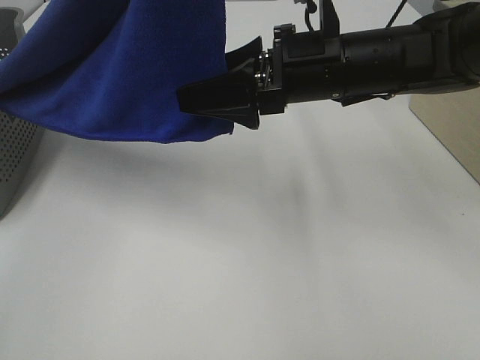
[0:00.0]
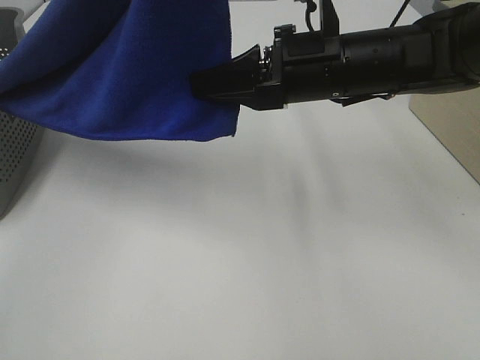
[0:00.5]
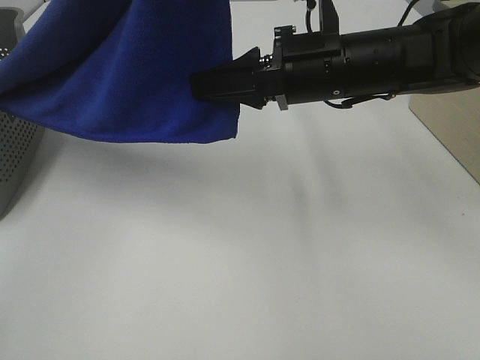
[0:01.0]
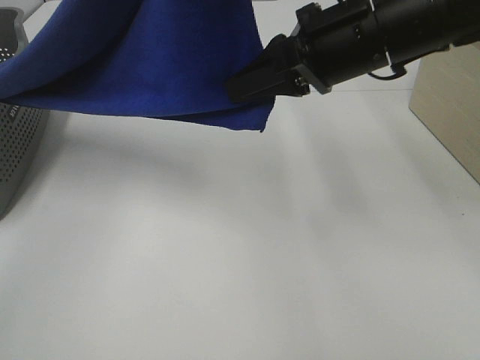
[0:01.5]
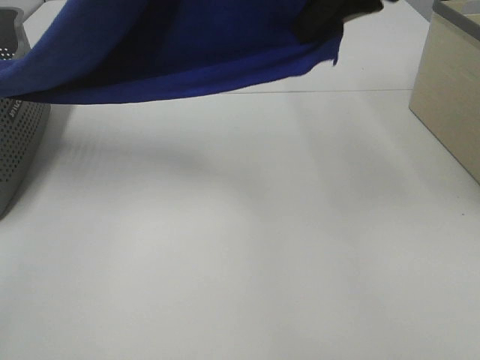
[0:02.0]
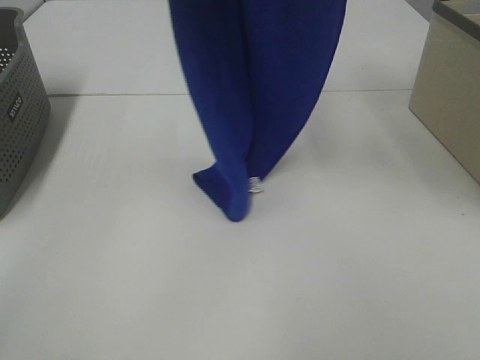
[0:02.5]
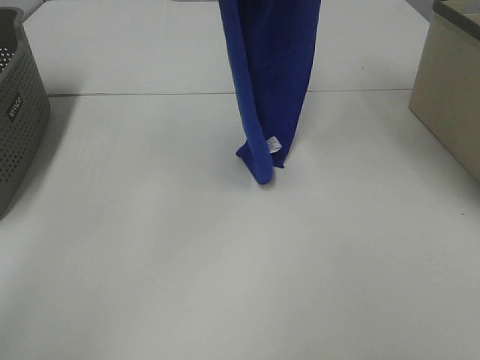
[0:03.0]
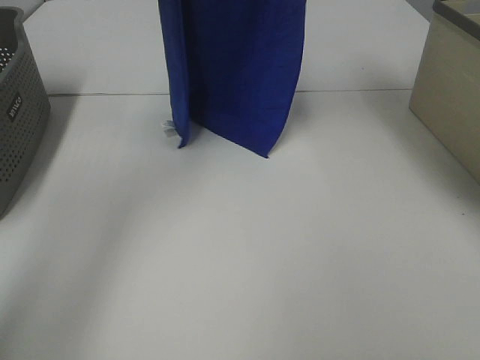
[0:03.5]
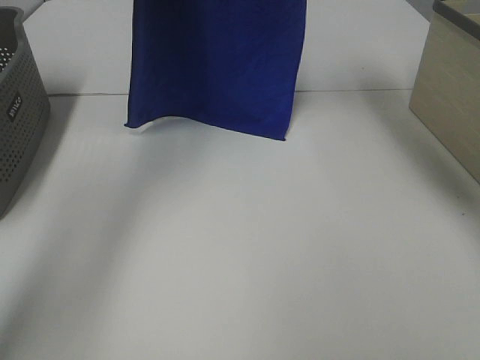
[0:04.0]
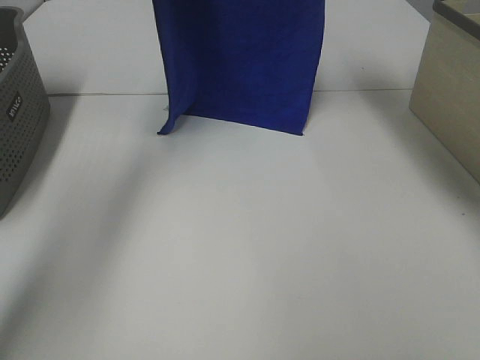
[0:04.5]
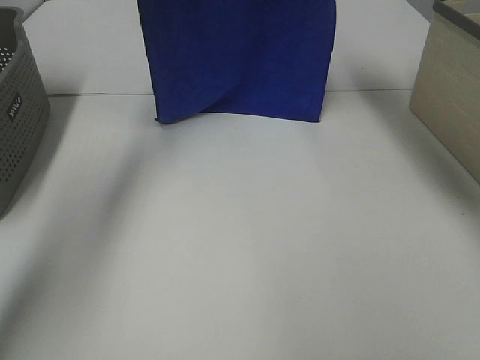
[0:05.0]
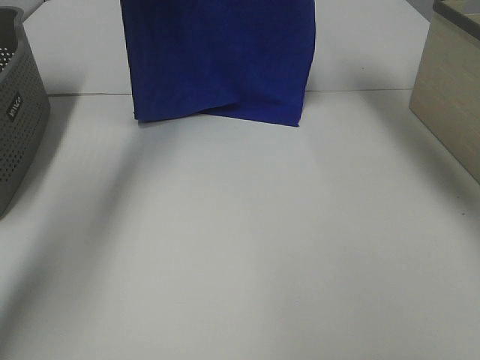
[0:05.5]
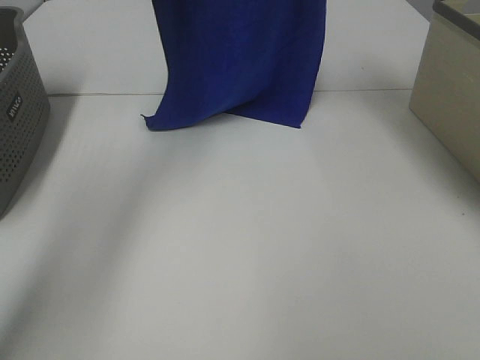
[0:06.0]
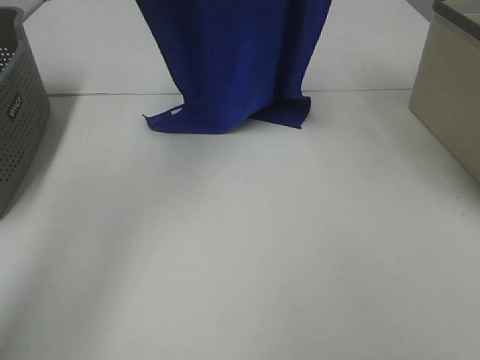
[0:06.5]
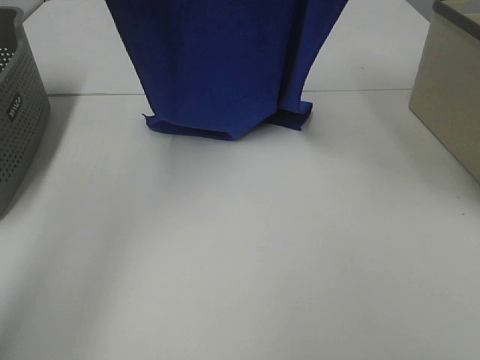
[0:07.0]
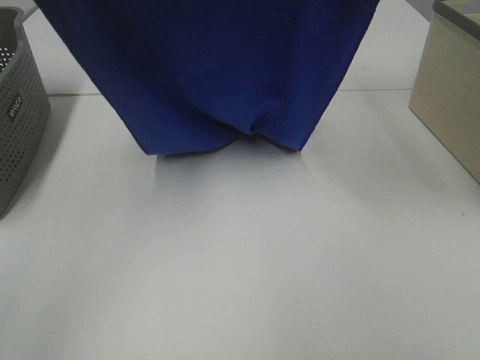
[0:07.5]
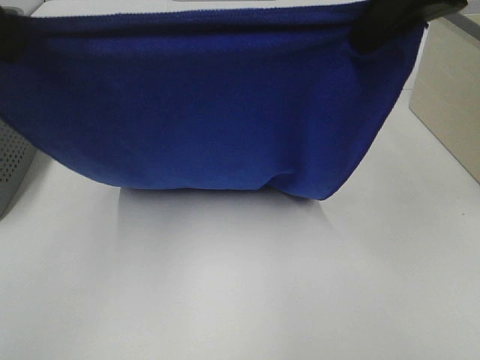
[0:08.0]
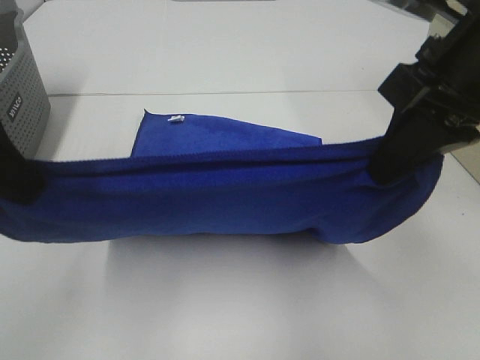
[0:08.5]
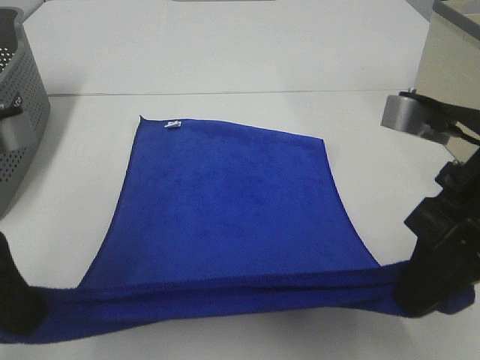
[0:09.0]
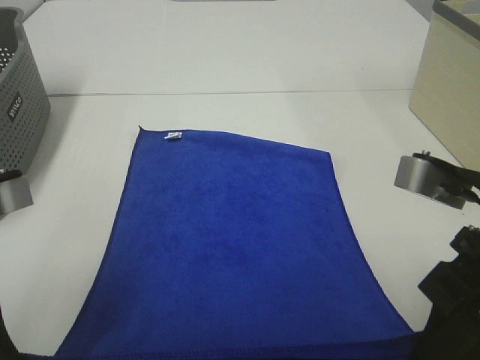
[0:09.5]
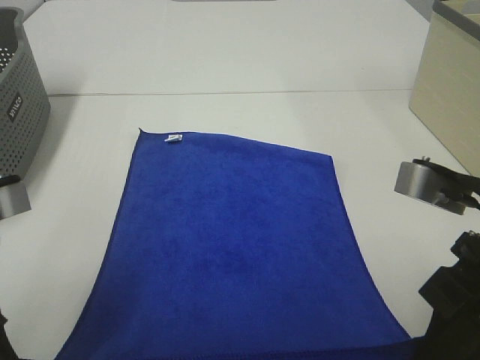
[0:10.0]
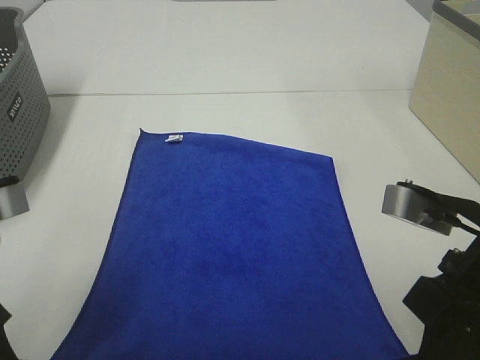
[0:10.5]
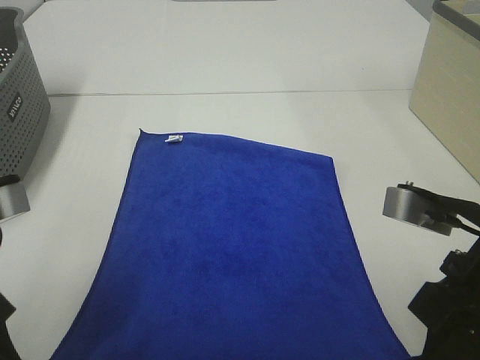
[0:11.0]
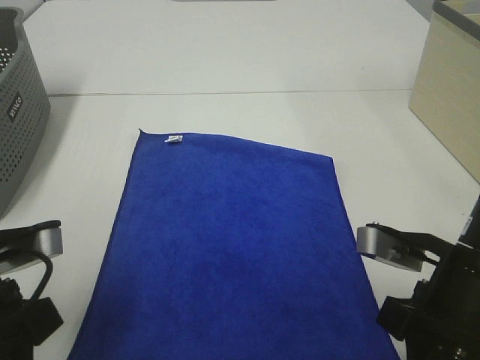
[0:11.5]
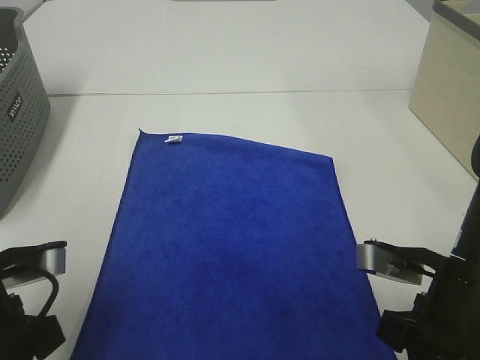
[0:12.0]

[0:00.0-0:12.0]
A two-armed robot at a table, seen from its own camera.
Task of the whole recording: Remove the towel and place it.
Step, 0:01.5 to 0:08.0: Left hand: spread the blue towel flat on the table.
Step, 0:01.5 to 0:08.0: Right hand: spread the blue towel flat on the table.
0:00.0 to 0:02.0: The right gripper moves upward, roughly 15 cm, and closes.
0:02.0 to 0:04.0: The right gripper heads forward and upward, covering about 20 cm; the left gripper moves forward, some 20 cm.
0:06.0 to 0:08.0: Both grippers move backward, approximately 25 cm.
0:08.0 to 0:10.0: Both grippers move downward and backward, some 20 cm.
0:10.0 to 0:12.0: The grippers both shift downward by some 10 cm.

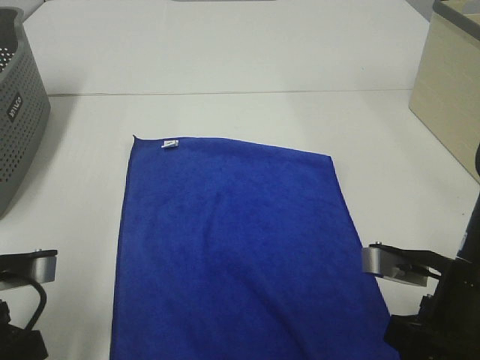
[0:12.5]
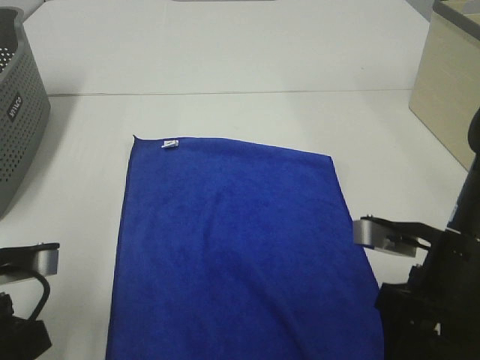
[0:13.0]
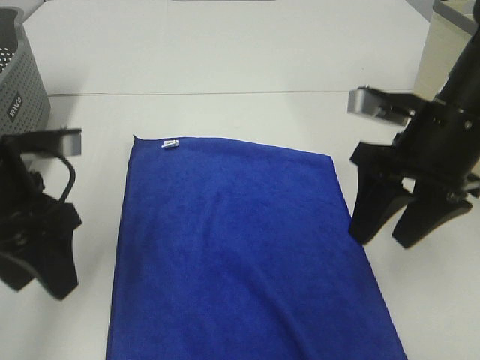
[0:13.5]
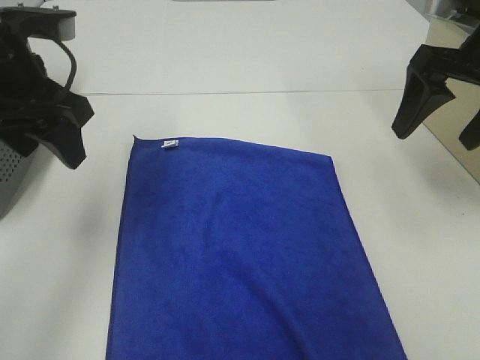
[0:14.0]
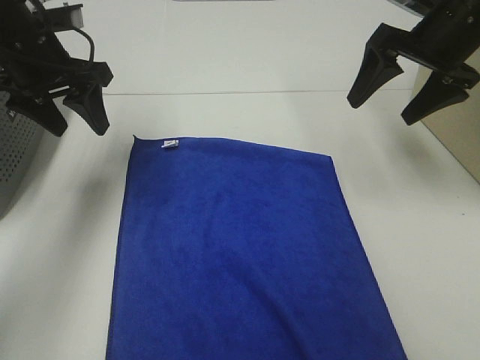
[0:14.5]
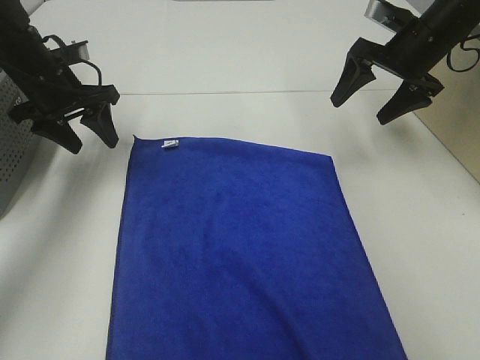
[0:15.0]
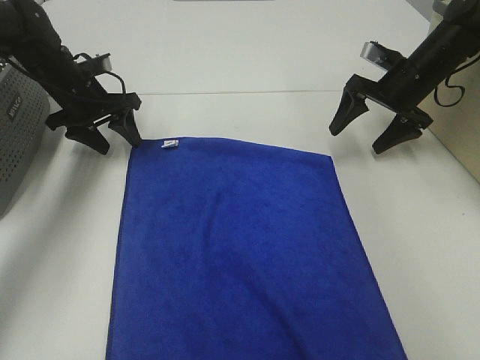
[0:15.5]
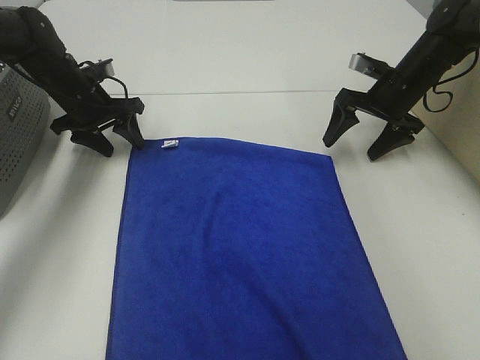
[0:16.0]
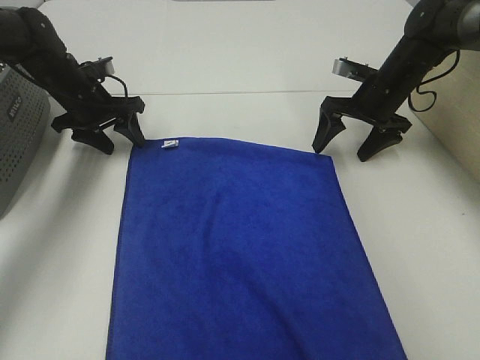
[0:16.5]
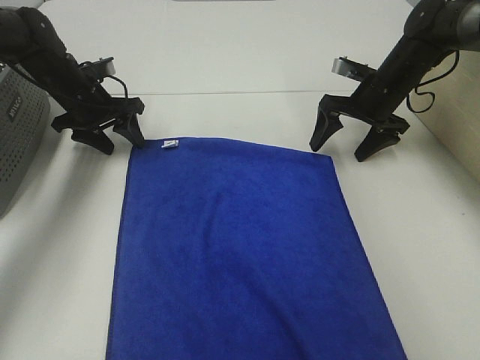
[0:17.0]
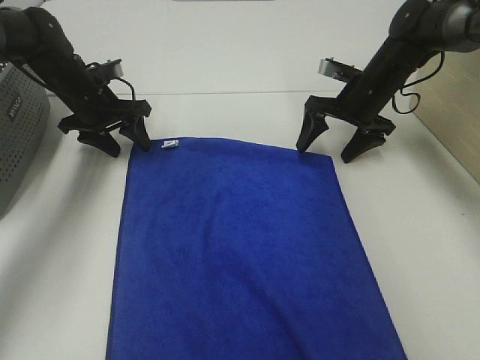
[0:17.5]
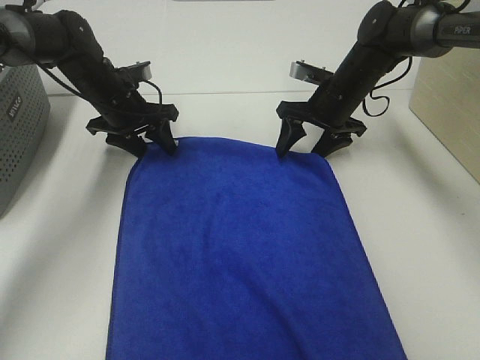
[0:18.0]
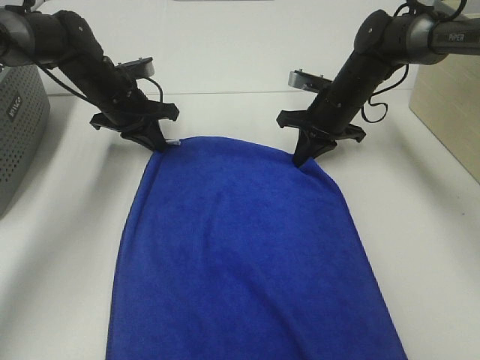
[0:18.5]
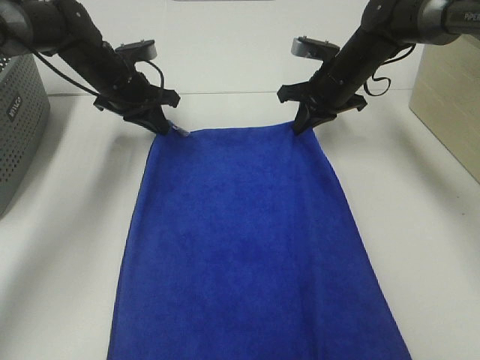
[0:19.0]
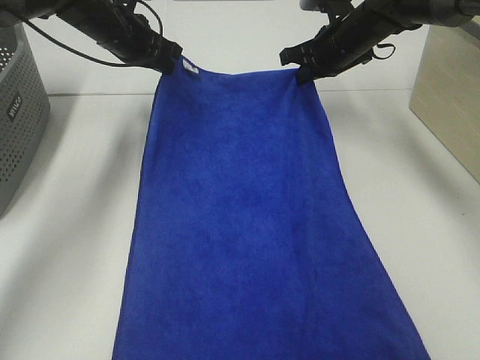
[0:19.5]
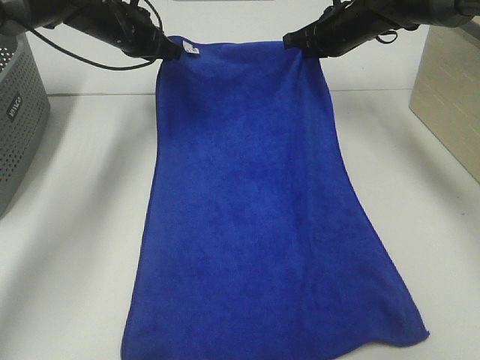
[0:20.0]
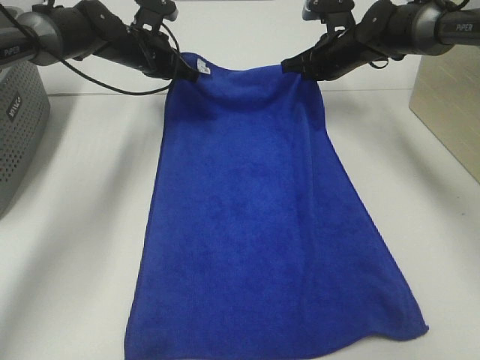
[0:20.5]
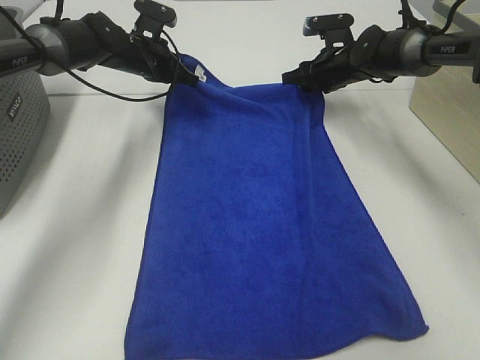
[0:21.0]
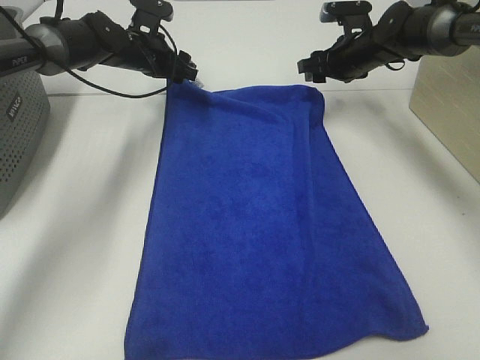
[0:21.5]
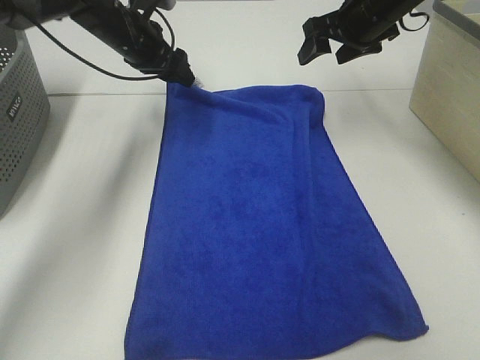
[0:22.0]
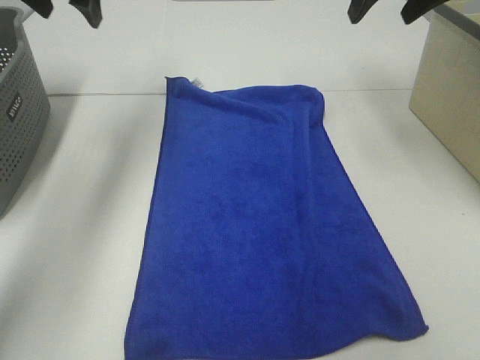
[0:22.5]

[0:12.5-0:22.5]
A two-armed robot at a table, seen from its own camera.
Task of the whole recording: Remove the towel and place it.
Step, 0:12.5 to 0:15.5: Left hand:adjust the blue towel.
Step, 0:12.5 to 0:15.5: Right hand:adjust the blue towel.
0:12.5 to 0:14.5: The right gripper moves forward and upward, about 25 cm, and opens; the left gripper travels forward by approximately 25 cm, and opens up.
0:14.5 to 0:16.5: Both grippers travel together downward and forward, about 15 cm.
0:16.5 to 0:18.5: The left gripper is displaced to the right by approximately 5 cm, and closes its fingers, while the right gripper goes roughly 5 cm to the left, and closes up.
0:18.5 to 0:20.5: Both grippers move forward, approximately 5 cm.
0:20.5 to 0:22.5: The grippers both shift upward and backward by approximately 20 cm. The right gripper opens; the left gripper opens up.

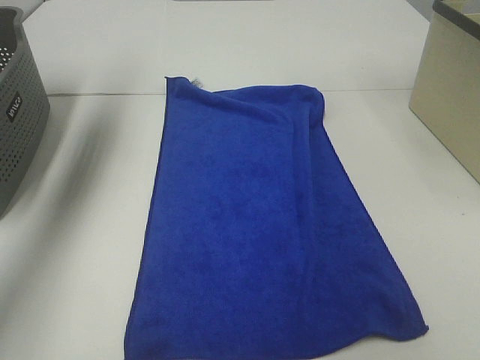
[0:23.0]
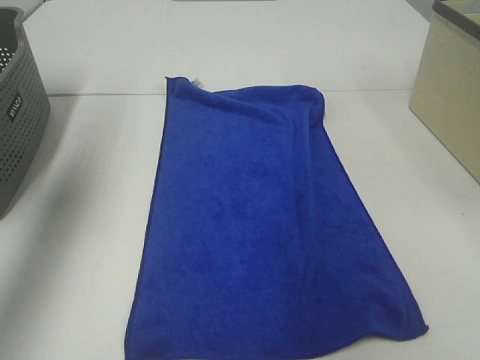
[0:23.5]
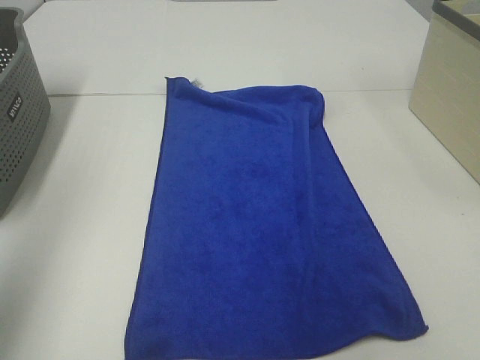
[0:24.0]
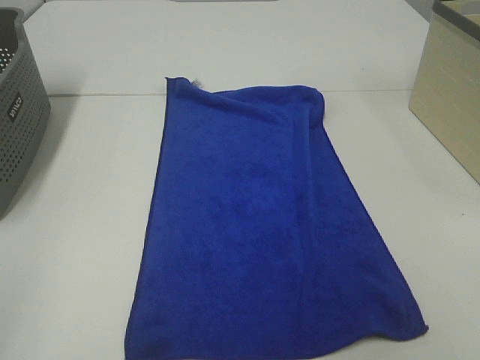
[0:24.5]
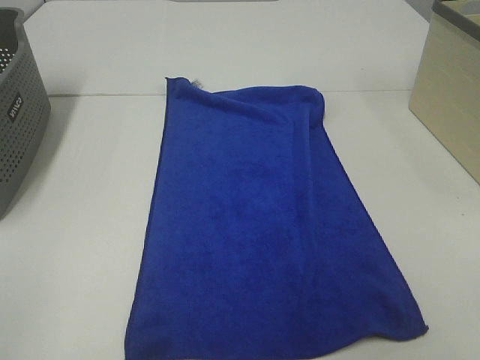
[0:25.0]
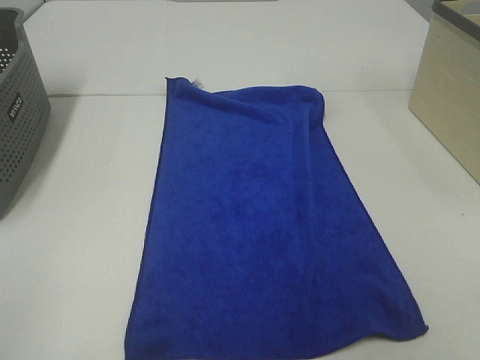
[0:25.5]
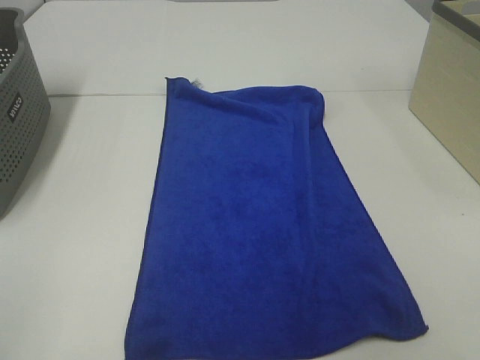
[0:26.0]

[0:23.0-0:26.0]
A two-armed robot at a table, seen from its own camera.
Task of the whole recording: Remove the towel and place it.
0:23.0 to 0:24.5: The left gripper moves backward, some 40 cm.
